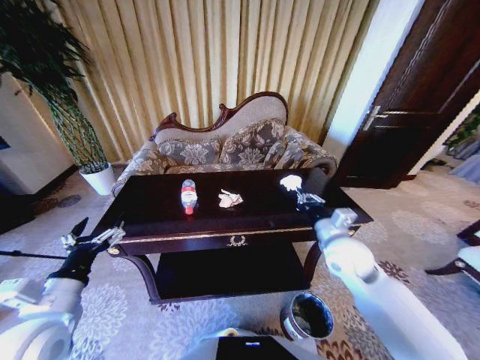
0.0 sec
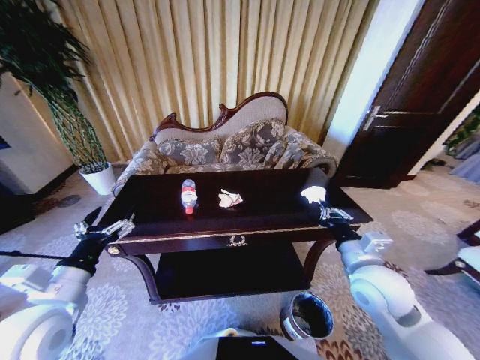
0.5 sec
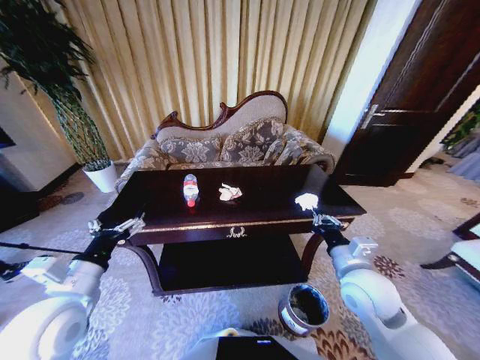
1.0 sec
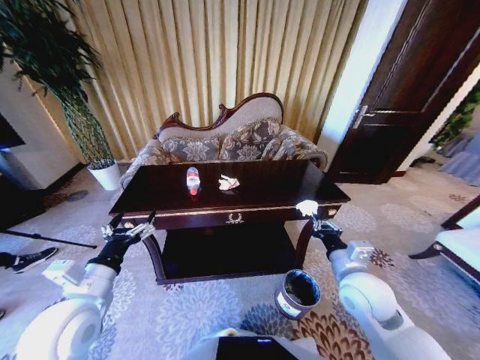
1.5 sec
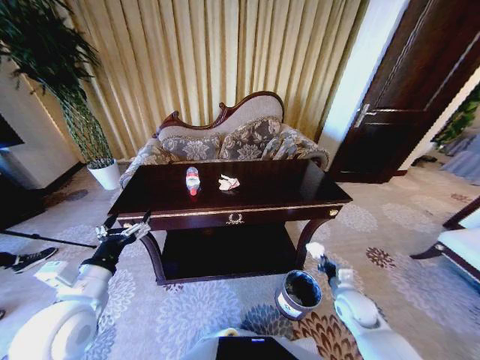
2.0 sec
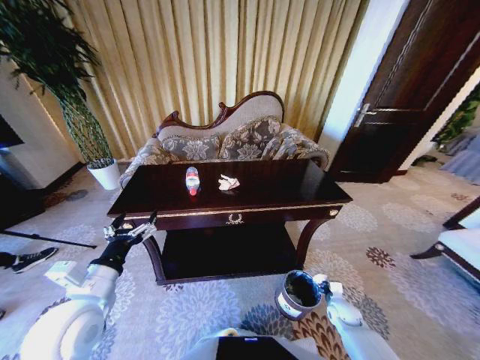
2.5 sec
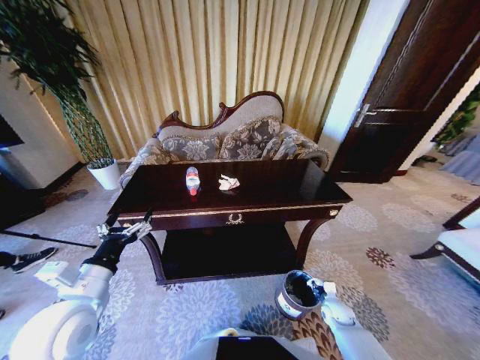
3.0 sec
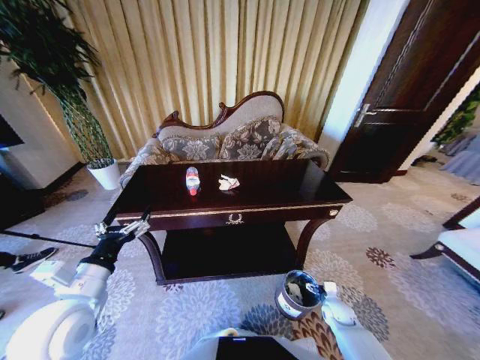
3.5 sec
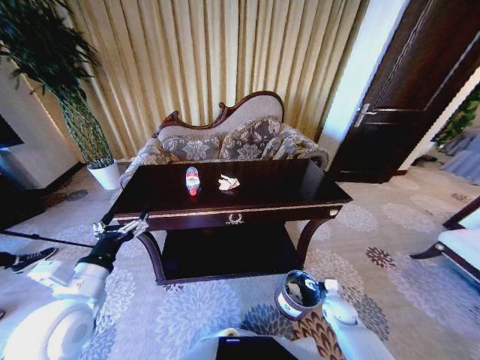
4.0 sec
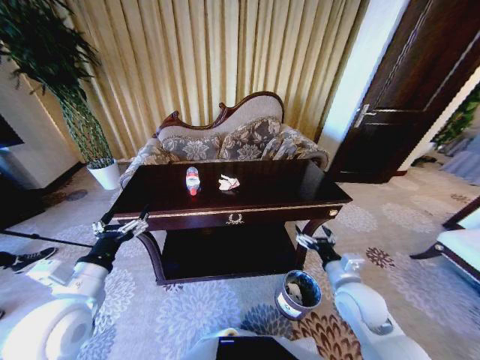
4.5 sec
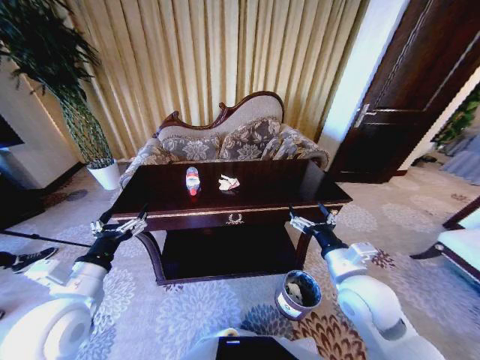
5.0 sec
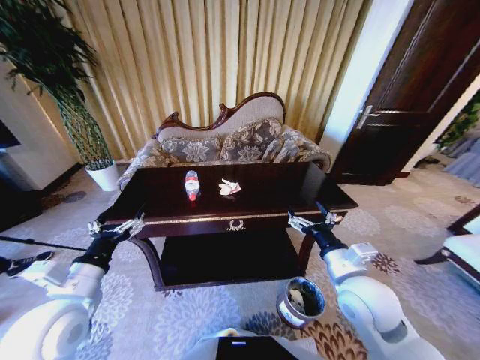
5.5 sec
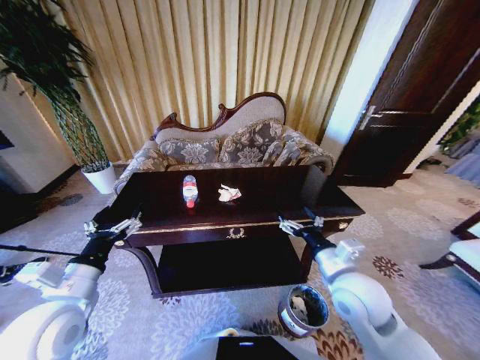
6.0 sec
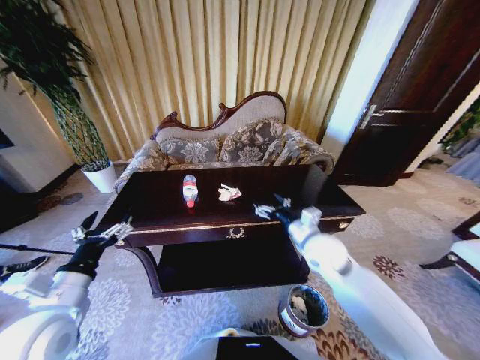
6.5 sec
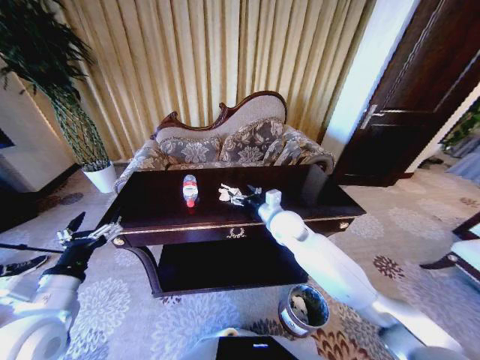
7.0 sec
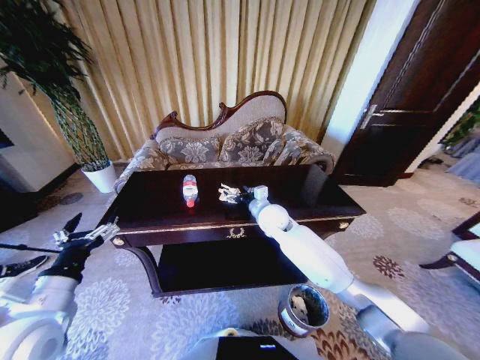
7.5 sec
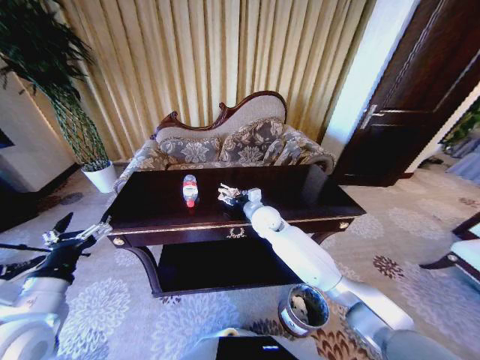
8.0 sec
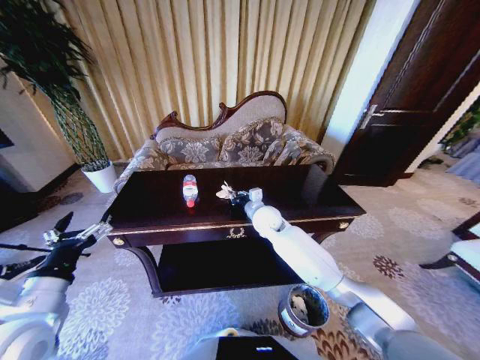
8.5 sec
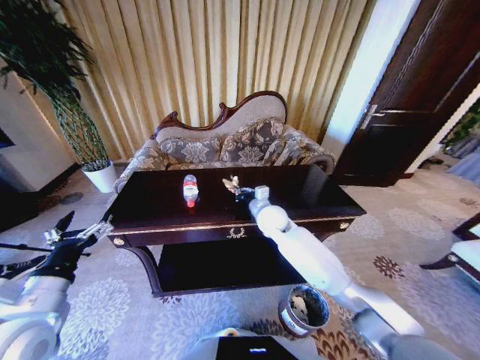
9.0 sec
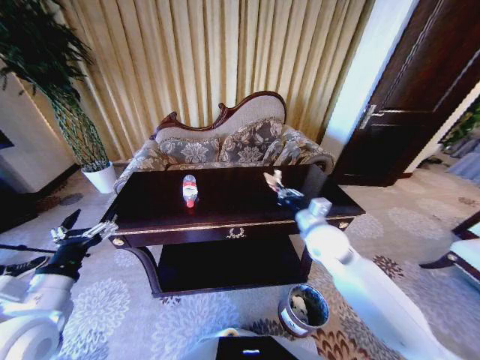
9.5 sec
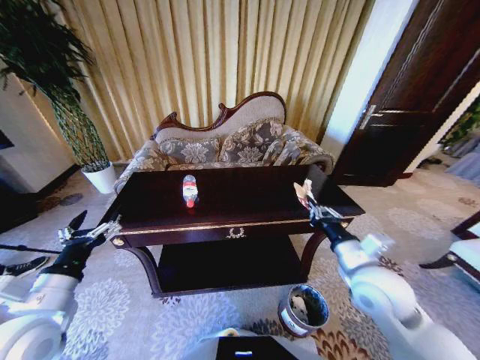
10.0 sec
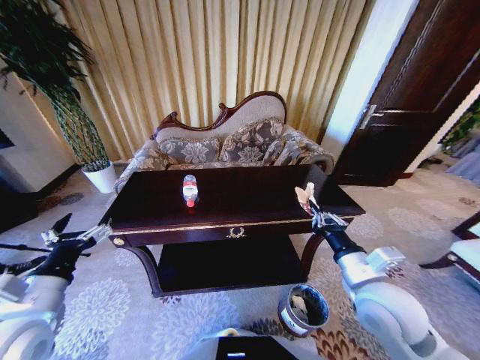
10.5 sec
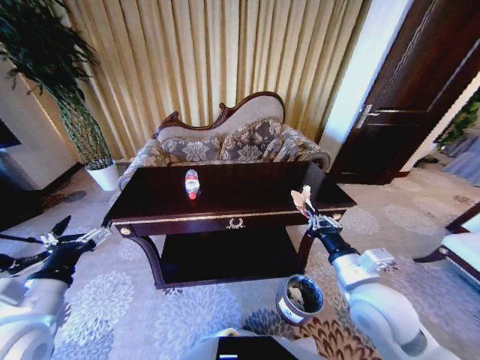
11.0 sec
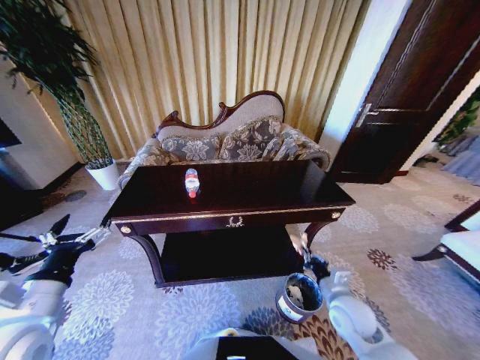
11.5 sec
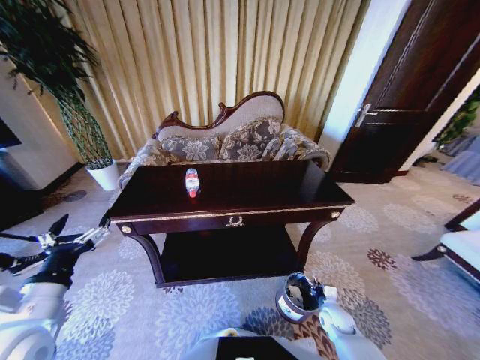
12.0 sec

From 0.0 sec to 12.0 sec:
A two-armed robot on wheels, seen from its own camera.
Task of the whole recording: Move to the front of the table and place the trash on the table into the trash bin.
From 0.0 sec to 2.0 sec: The right gripper heads downward and to the right, covering approximately 25 cm.
From 2.0 sec to 4.0 sec: The right gripper is displaced downward by roughly 10 cm, and opens.
From 4.0 sec to 6.0 sec: The right gripper travels upward and to the left by about 35 cm.
From 6.0 sec to 8.0 sec: The right gripper travels forward and to the left by approximately 30 cm.
From 8.0 sec to 10.0 sec: The right gripper moves backward and to the right, some 30 cm, and closes its fingers.
From 10.0 sec to 12.0 sec: The right gripper heads downward, covering some 35 cm.

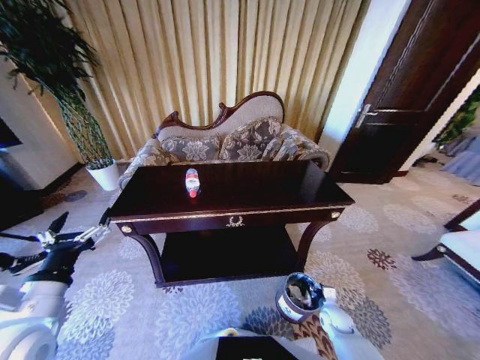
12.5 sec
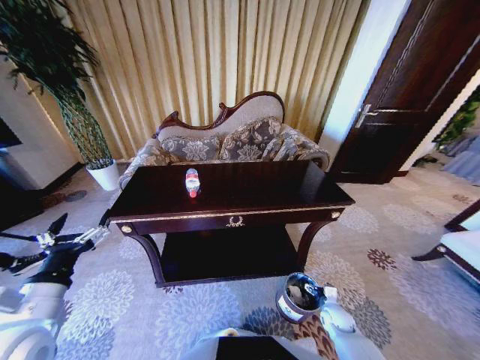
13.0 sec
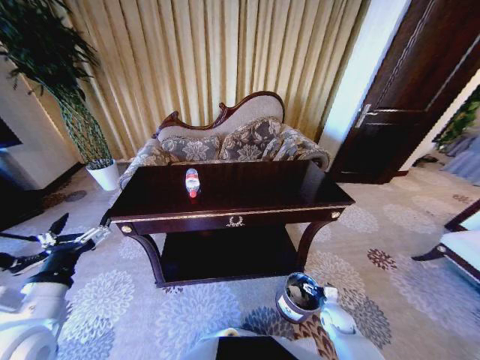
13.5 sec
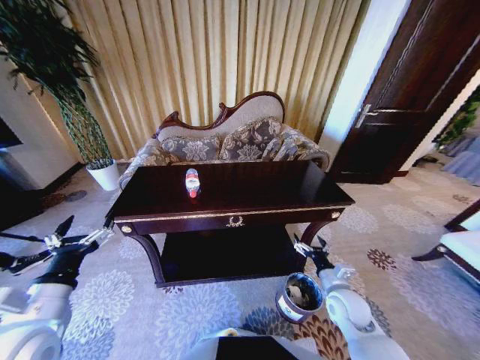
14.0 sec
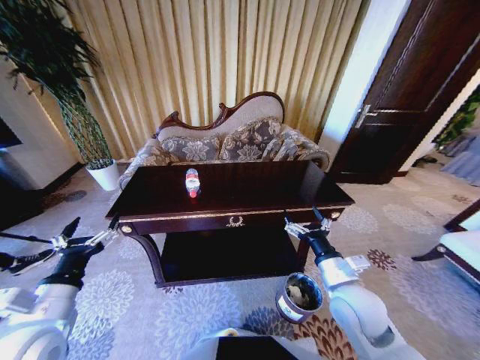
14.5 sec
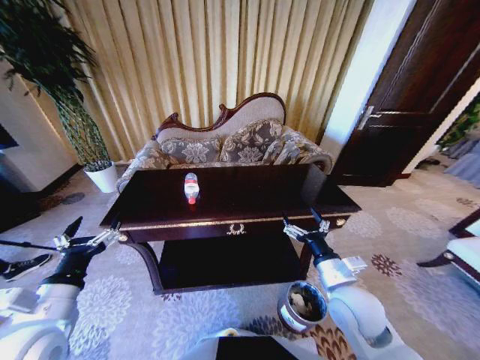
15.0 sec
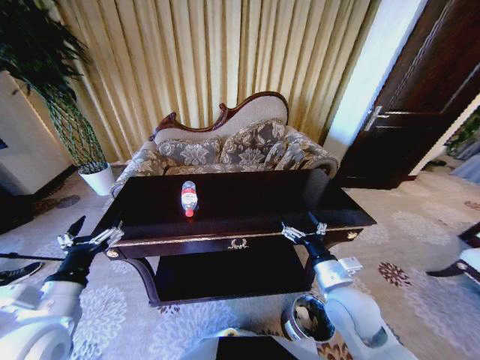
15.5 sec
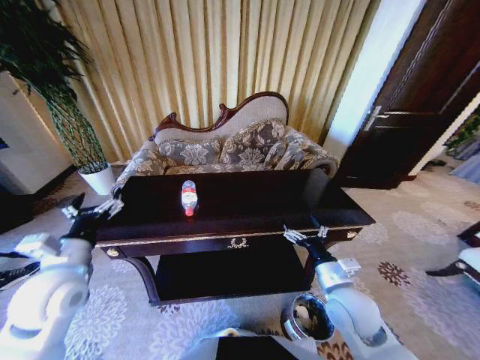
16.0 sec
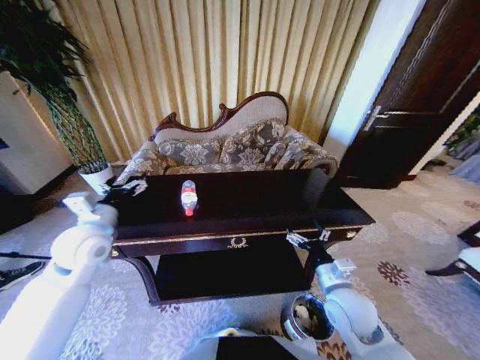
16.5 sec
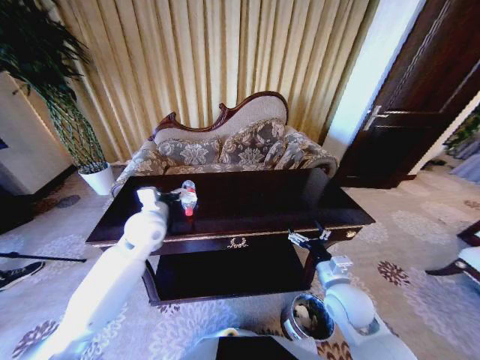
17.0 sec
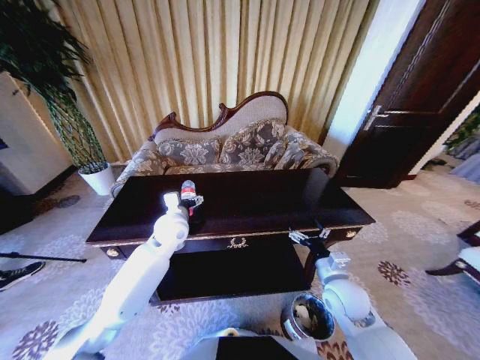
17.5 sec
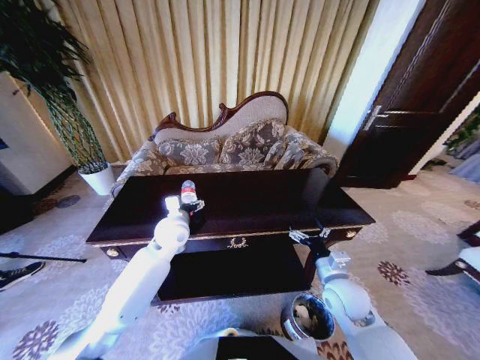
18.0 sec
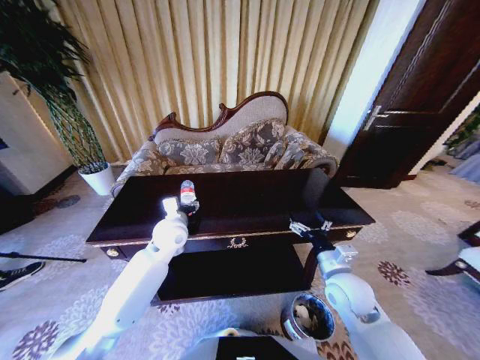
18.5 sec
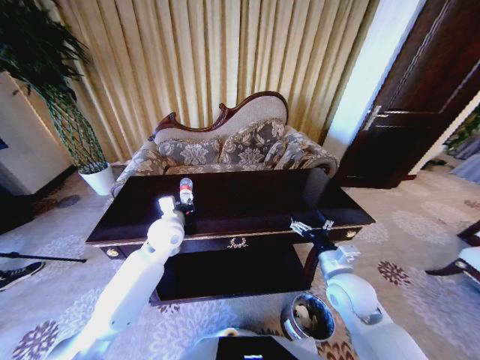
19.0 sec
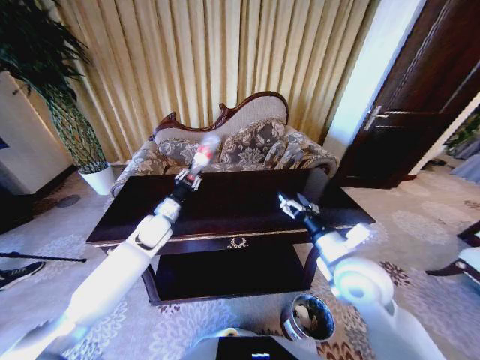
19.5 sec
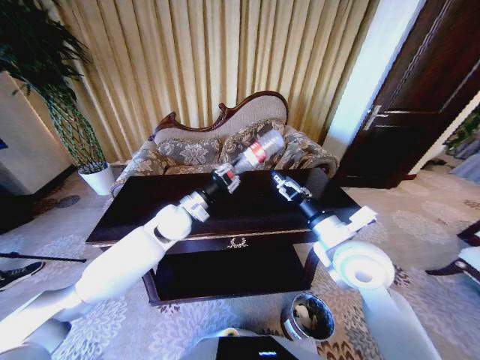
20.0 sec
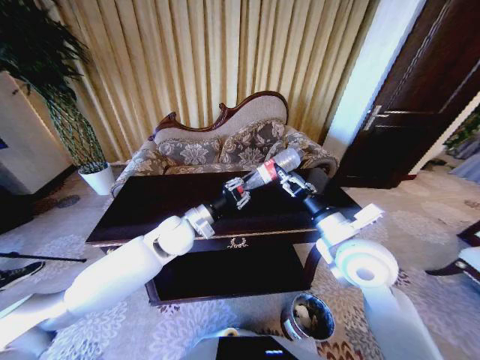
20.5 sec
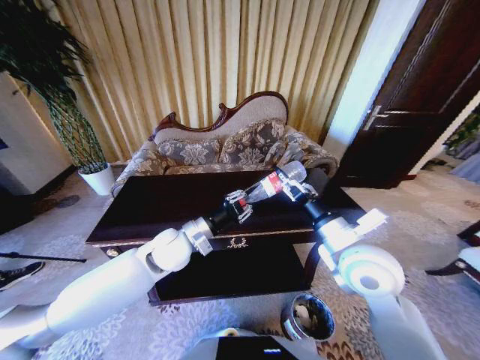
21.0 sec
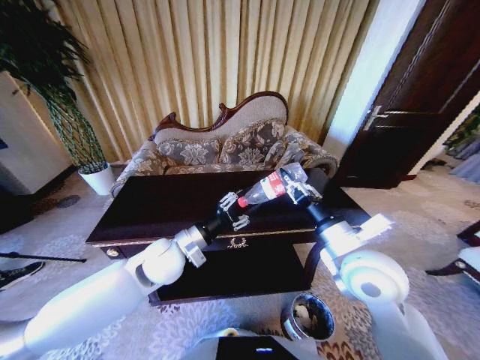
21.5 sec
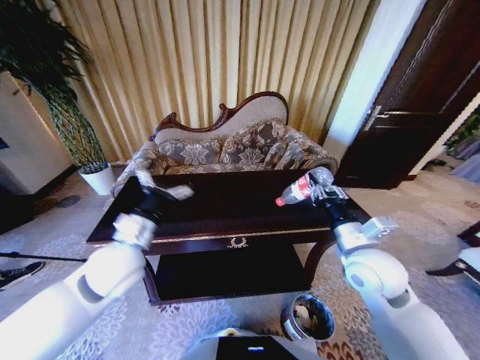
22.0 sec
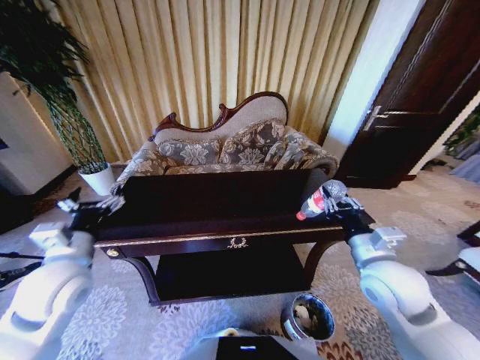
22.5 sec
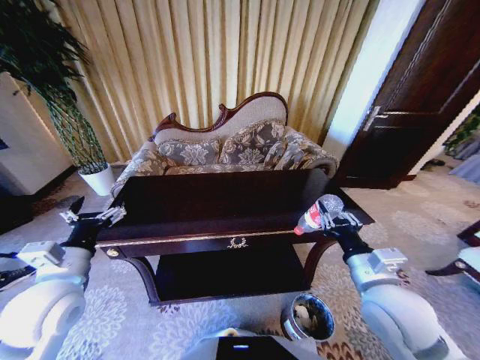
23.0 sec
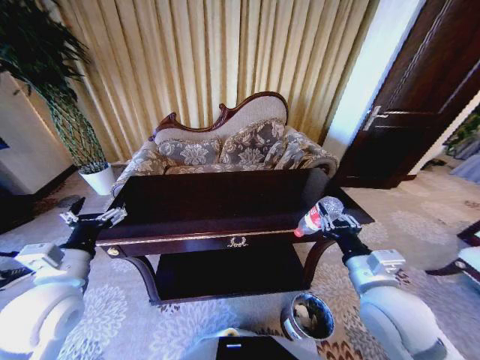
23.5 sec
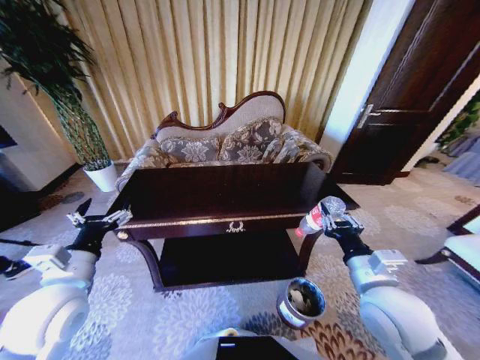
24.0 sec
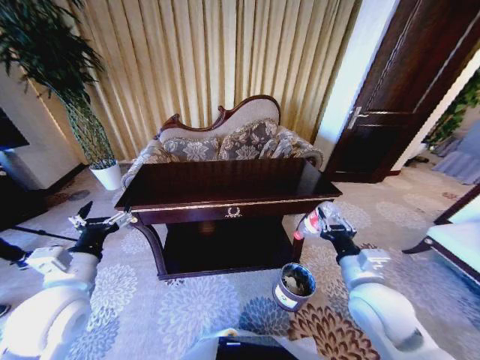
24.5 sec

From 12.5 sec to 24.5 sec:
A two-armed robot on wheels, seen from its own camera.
Task of the whole recording: Move to the front of the table and place the trash on the table into the trash bin.
From 12.5 sec to 14.5 sec: The right gripper goes some 30 cm upward, and opens up.
From 14.5 sec to 16.5 sec: The left gripper shifts roughly 20 cm forward.
From 16.5 sec to 18.5 sec: The left gripper moves to the right, downward and forward, roughly 20 cm, and closes up.
From 18.5 sec to 20.5 sec: The right gripper travels upward by roughly 15 cm, while the left gripper reaches about 5 cm to the left, then returns, and closes up.
From 20.5 sec to 22.5 sec: The right gripper heads to the right, covering about 5 cm, and closes up. Meanwhile the left gripper travels to the left and backward by roughly 25 cm, and opens up.
From 22.5 sec to 24.5 sec: The right gripper moves about 5 cm.

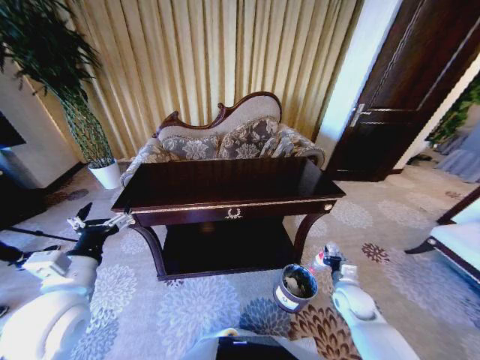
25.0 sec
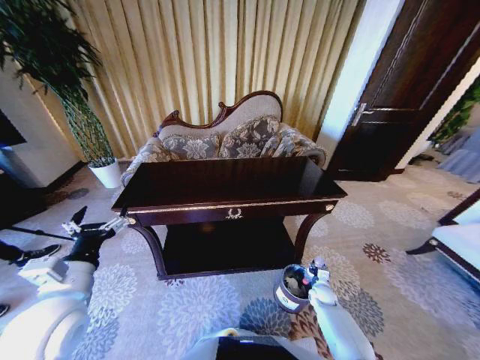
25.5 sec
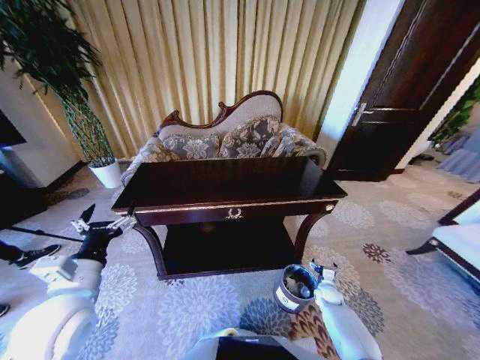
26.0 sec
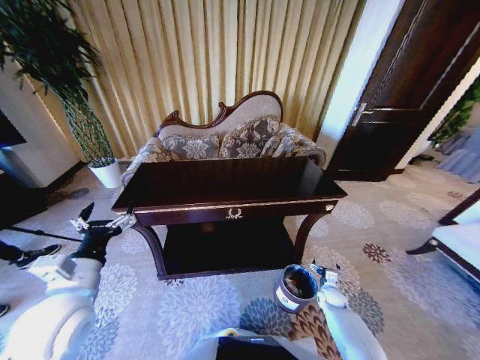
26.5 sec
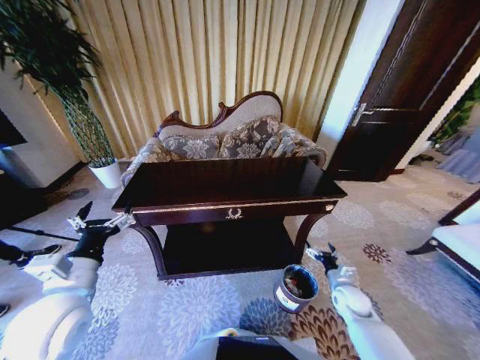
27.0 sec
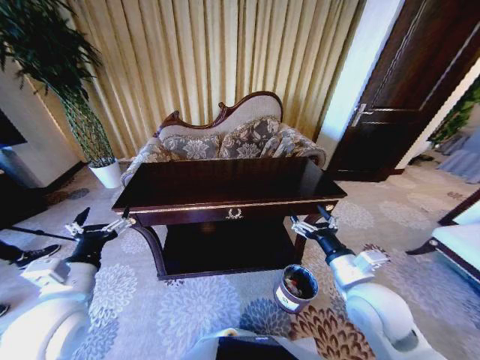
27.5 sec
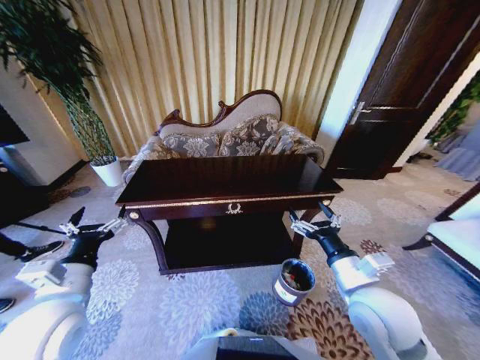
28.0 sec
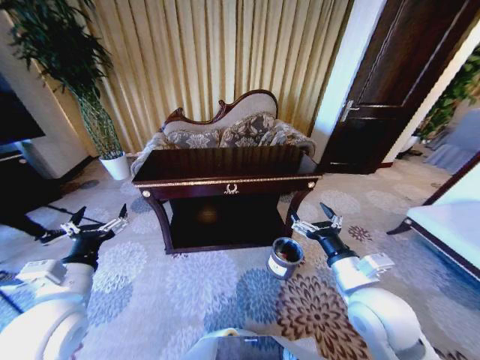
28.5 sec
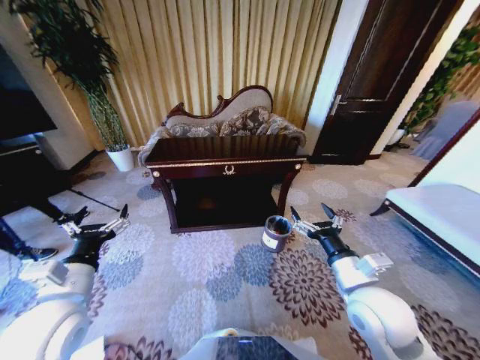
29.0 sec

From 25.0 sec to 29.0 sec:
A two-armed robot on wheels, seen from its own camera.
Task of the whole recording: Move to the front of the table and place the trash on the table into the trash bin.
From 25.0 sec to 27.0 sec: The right gripper moves roughly 15 cm downward and comes back, and opens.
From 27.0 sec to 29.0 sec: The right gripper travels upward and to the left by approximately 30 cm.
